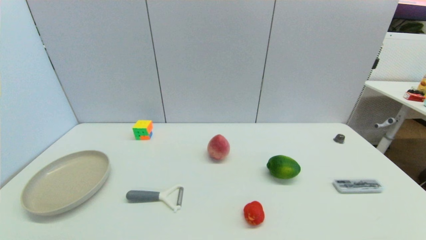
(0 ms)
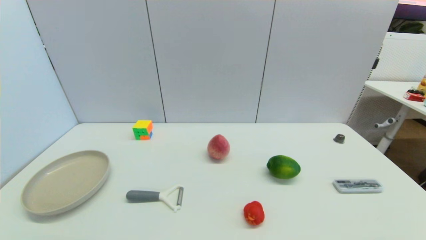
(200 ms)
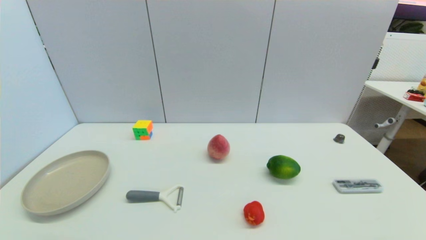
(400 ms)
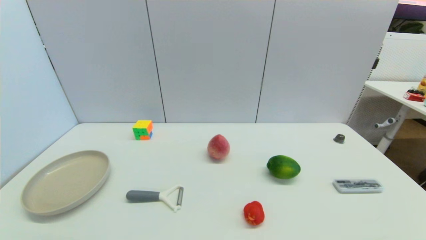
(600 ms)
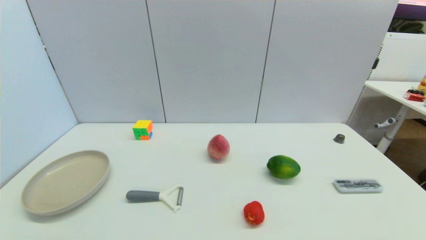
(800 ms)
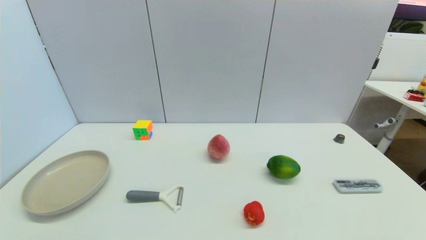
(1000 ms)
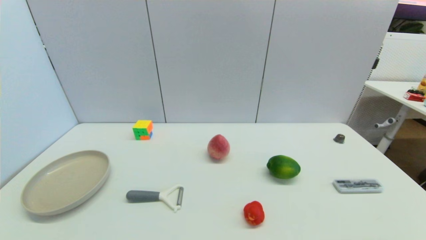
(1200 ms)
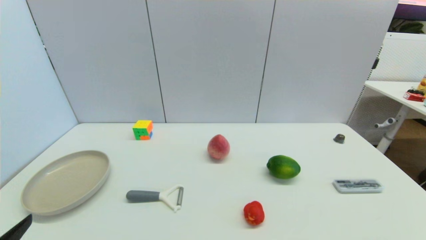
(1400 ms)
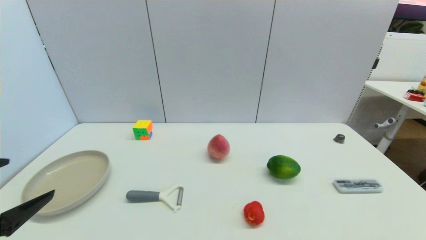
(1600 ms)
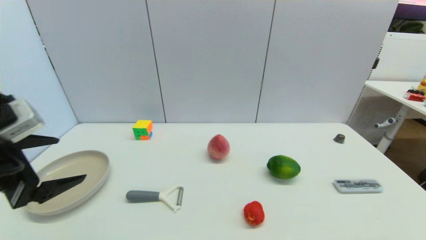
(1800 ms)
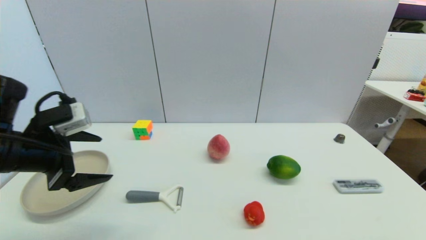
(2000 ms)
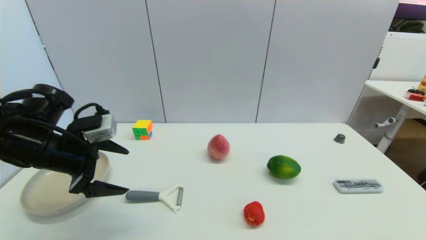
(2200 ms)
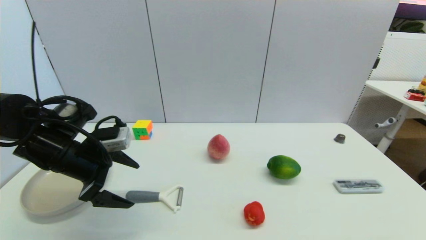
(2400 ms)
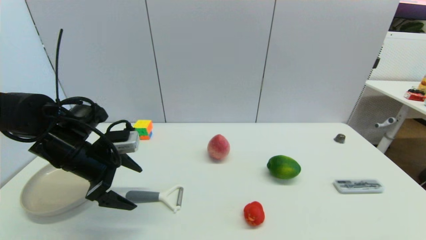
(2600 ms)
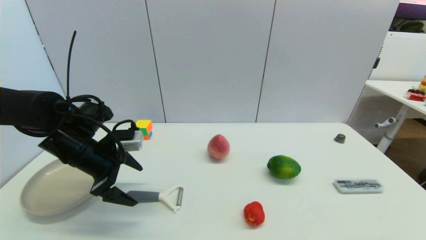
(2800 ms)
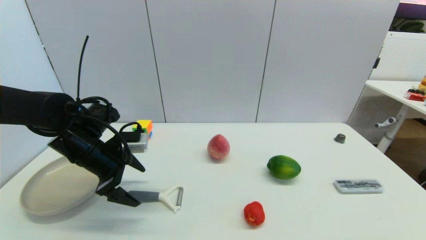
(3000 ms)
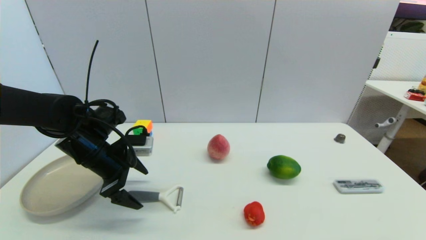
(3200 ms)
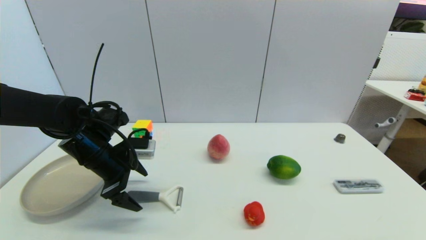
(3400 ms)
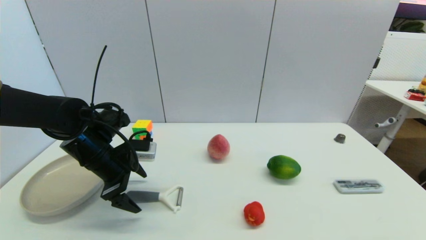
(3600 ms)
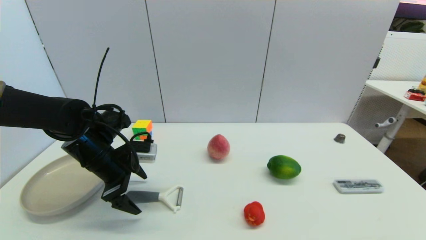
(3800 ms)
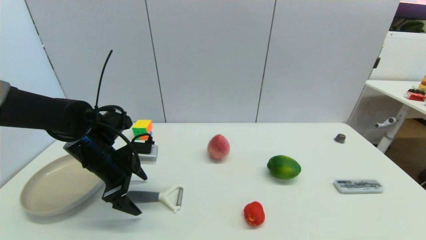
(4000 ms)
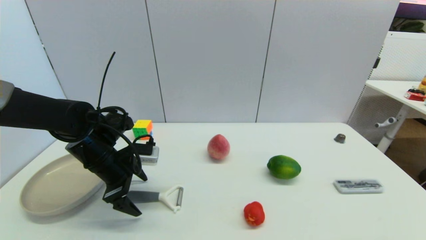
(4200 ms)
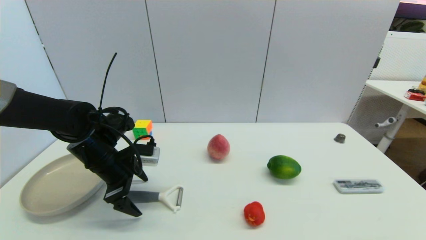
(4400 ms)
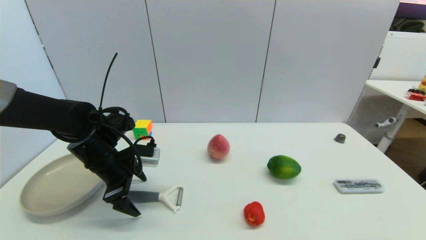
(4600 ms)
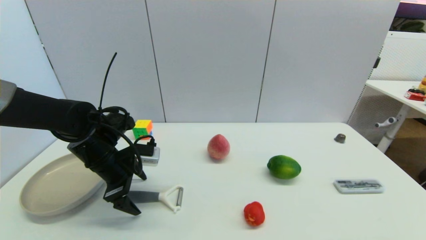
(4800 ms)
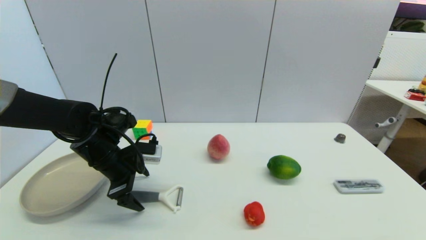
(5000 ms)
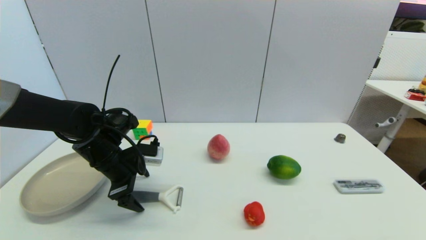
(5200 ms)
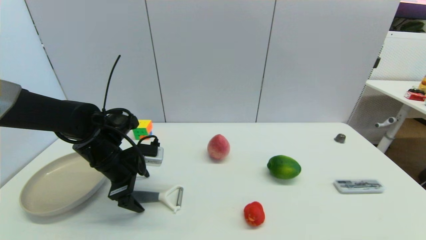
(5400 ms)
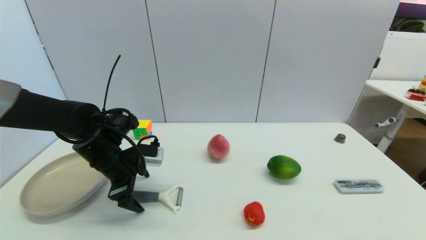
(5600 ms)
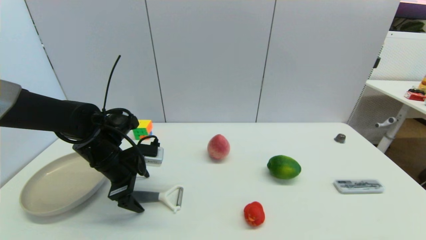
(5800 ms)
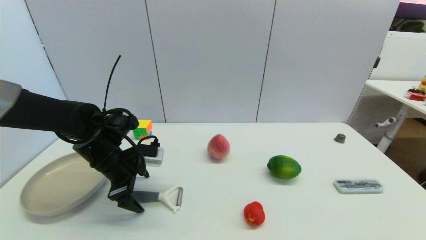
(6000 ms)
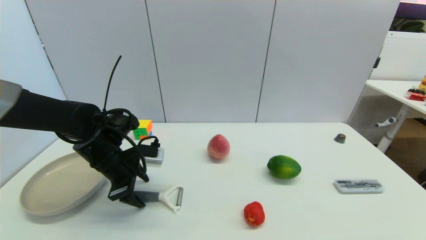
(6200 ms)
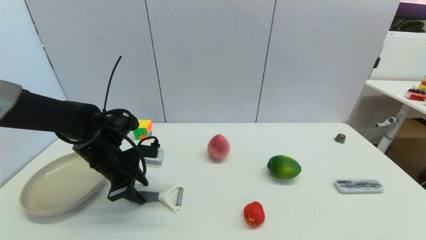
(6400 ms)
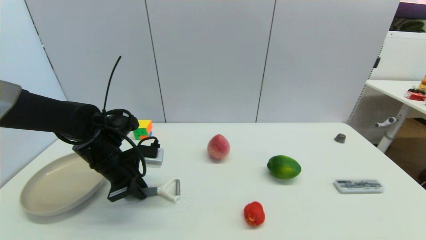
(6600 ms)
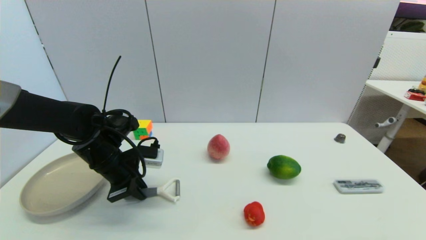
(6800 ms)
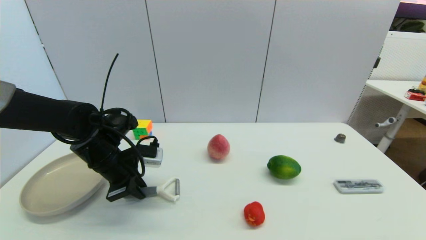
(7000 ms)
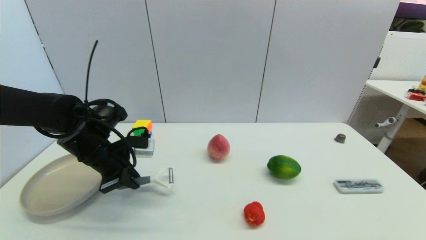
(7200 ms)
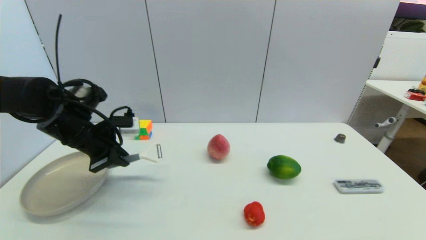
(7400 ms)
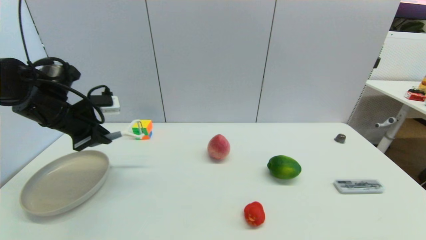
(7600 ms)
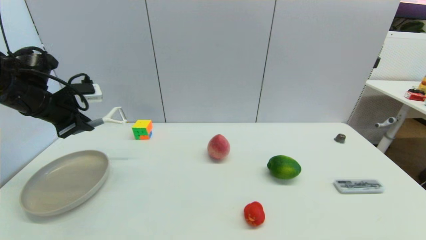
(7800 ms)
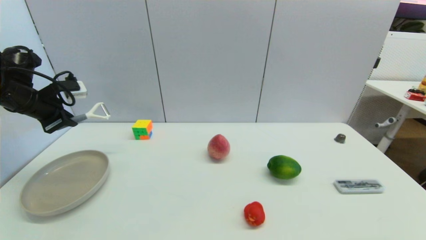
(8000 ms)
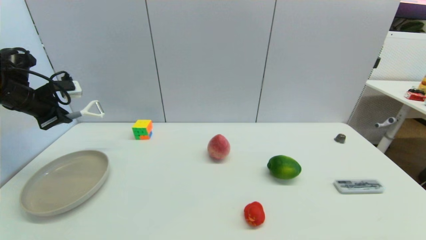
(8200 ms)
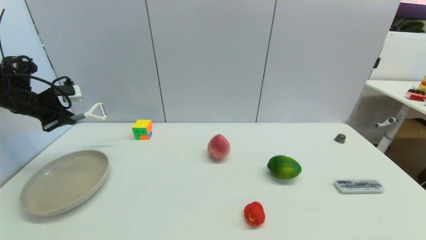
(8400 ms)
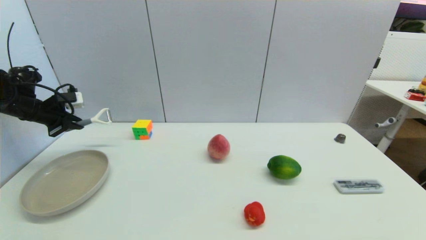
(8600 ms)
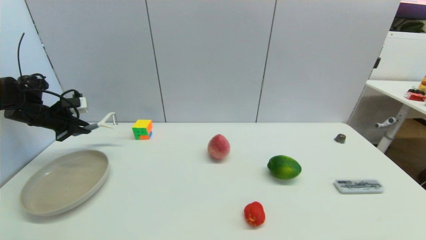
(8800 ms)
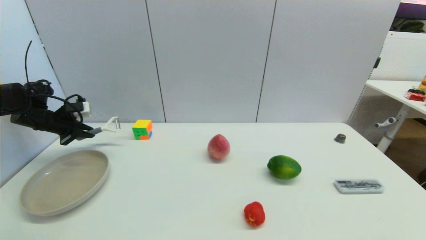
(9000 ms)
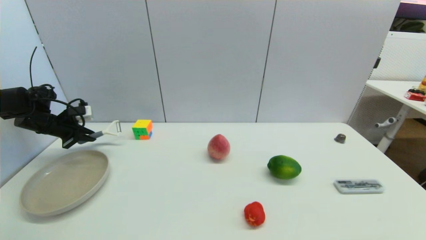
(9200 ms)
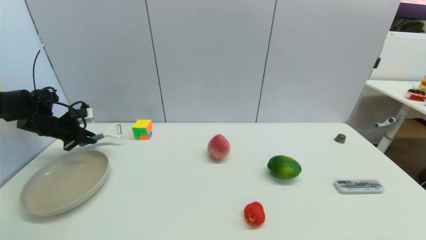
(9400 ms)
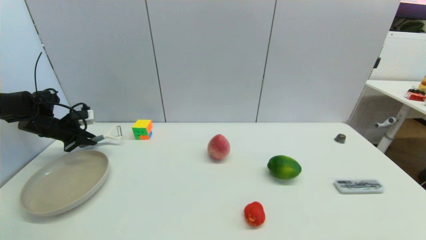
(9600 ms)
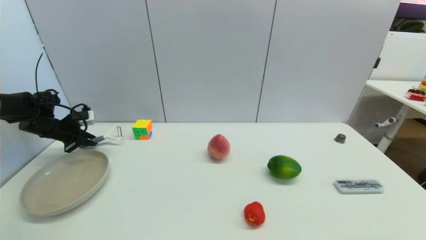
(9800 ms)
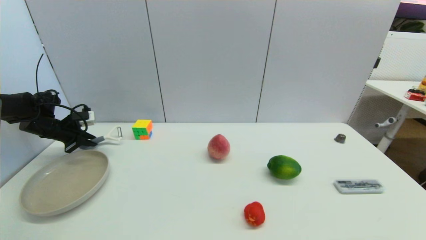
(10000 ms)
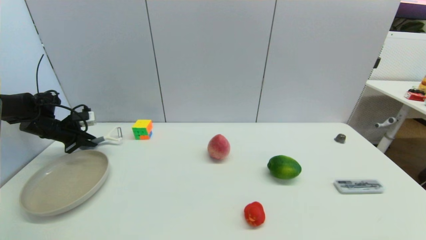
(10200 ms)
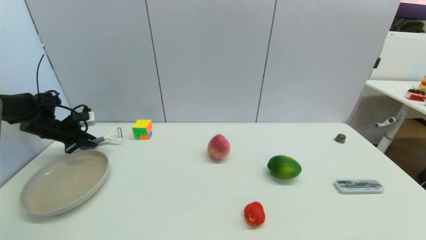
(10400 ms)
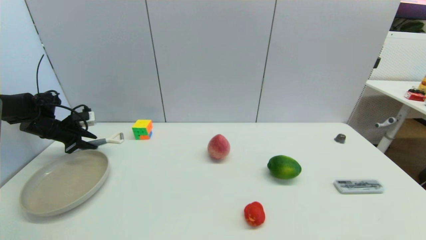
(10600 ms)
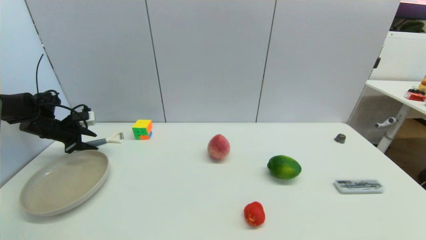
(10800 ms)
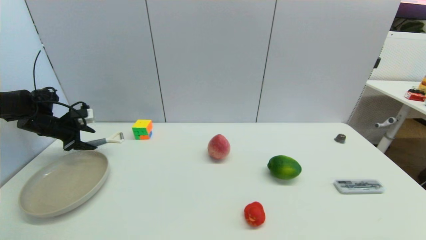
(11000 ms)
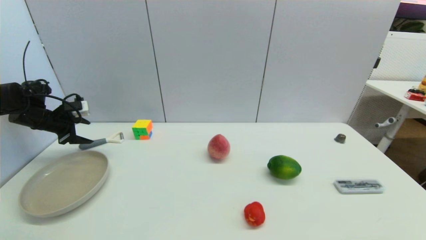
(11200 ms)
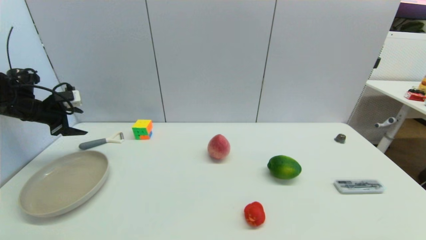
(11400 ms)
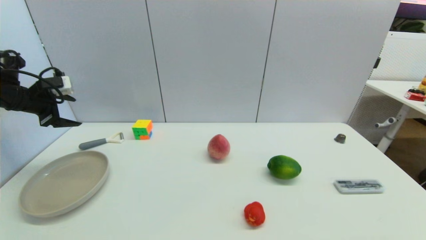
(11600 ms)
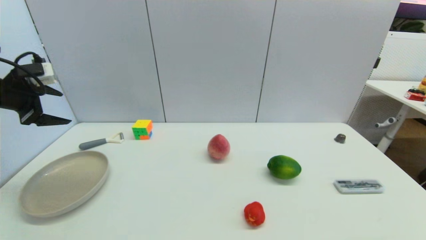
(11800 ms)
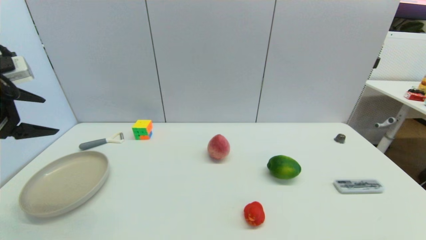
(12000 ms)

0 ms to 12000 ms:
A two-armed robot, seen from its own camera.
Step, 1400 ms to 7200 ms: Grasp the peeler with left gripper.
Step, 7400 ms to 11000 ms: Place the peeler on the table with left gripper.
0 ms to 1600 ms: The left gripper heads upward and forward, covering roughly 20 cm.
1600 ms to 3000 ms: The left gripper travels forward and downward by roughly 20 cm.
3000 ms to 4400 ms: There are only small adjustments of the grippers.
4400 ms to 6000 ms: Both grippers stay put.
6000 ms to 7600 ms: The left gripper travels to the left and upward by some 15 cm, and closes.
7600 ms to 9000 ms: The left gripper shifts roughly 20 cm to the left, forward and downward.
9000 ms to 10400 ms: There are only small adjustments of the grippers.
10400 ms to 12000 ms: The left gripper goes roughly 30 cm backward, upward and to the right, and opens up.

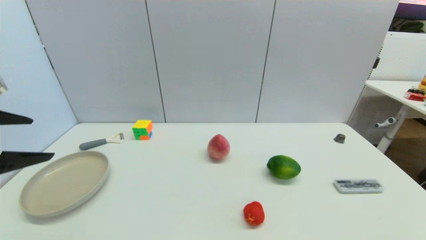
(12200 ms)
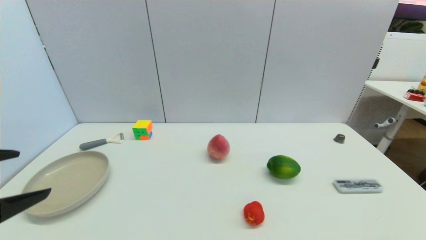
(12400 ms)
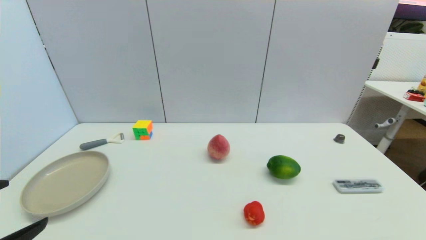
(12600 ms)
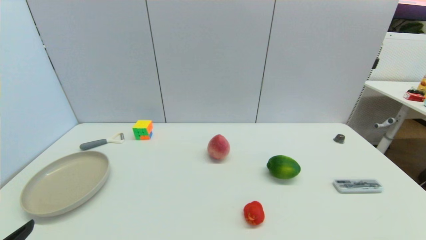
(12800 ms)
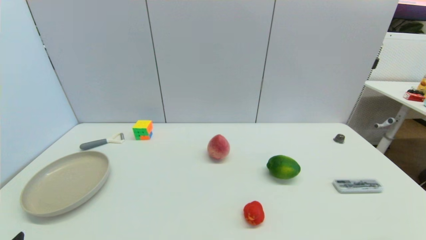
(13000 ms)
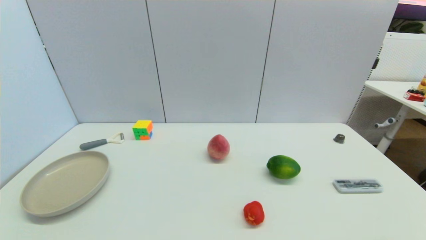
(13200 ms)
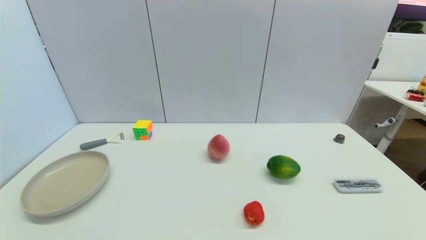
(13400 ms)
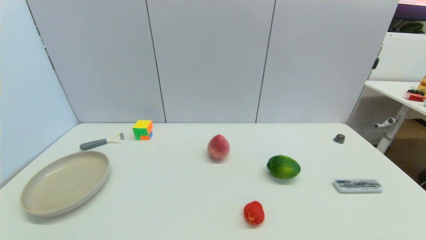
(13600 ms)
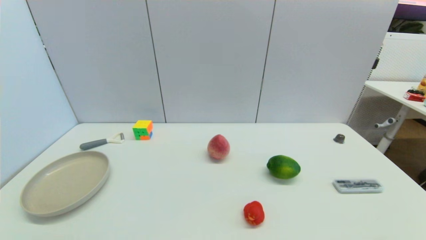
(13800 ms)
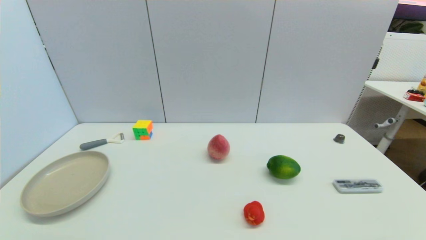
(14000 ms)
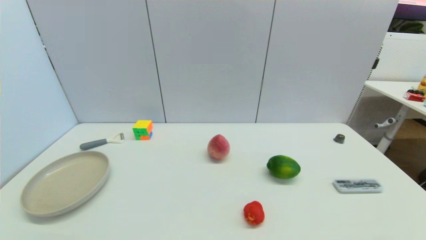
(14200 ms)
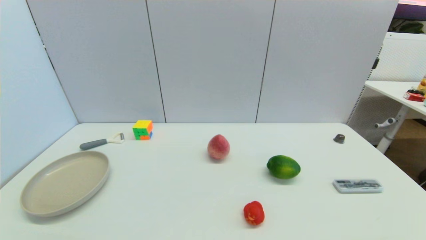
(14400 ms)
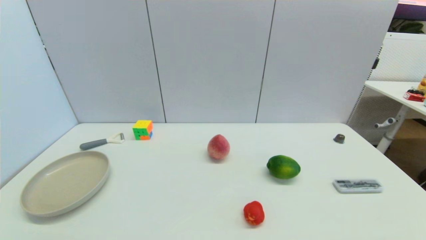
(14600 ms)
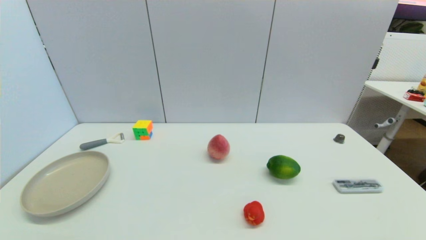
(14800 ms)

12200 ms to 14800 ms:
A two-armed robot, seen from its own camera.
12200 ms to 13400 ms: The left gripper heads downward and backward, covering roughly 25 cm.
